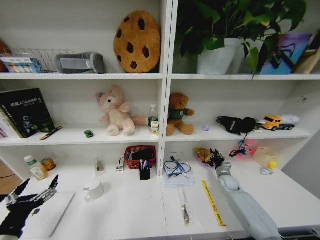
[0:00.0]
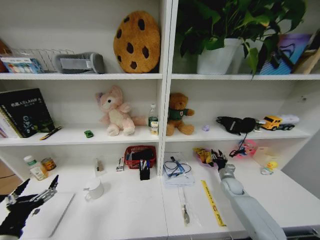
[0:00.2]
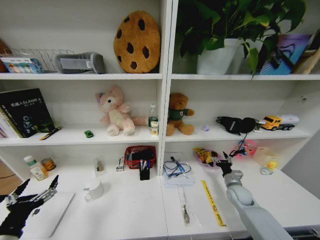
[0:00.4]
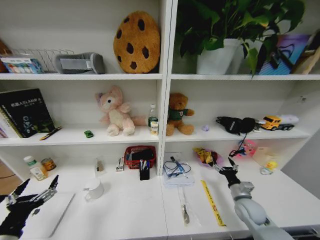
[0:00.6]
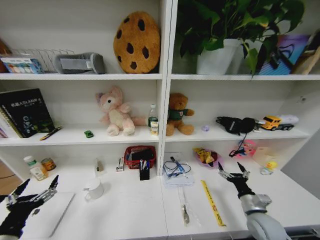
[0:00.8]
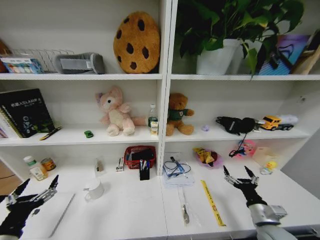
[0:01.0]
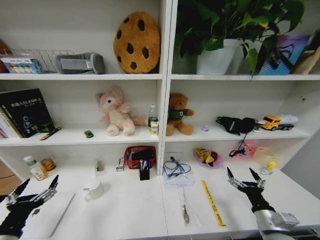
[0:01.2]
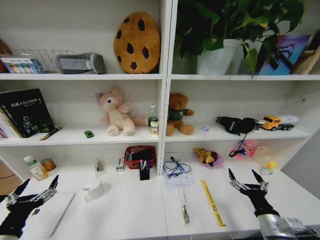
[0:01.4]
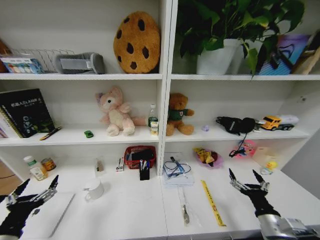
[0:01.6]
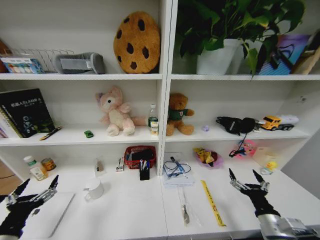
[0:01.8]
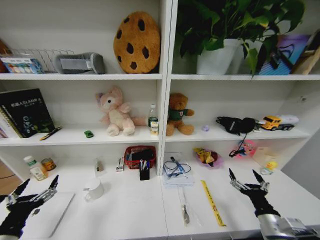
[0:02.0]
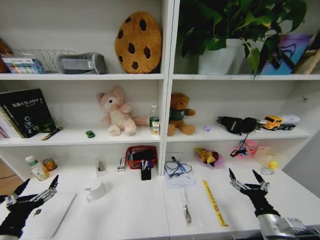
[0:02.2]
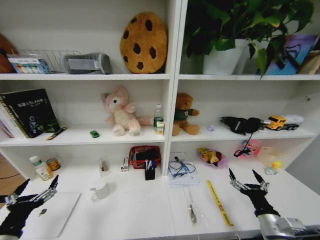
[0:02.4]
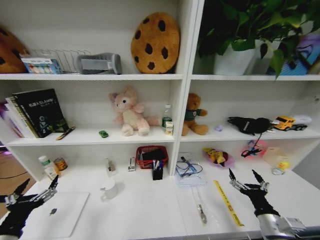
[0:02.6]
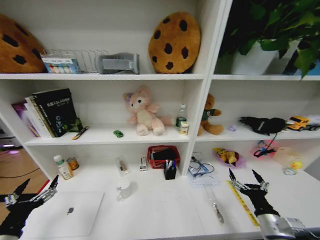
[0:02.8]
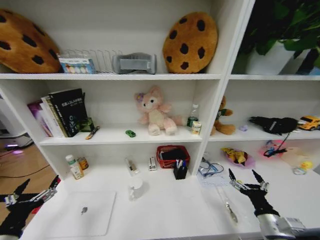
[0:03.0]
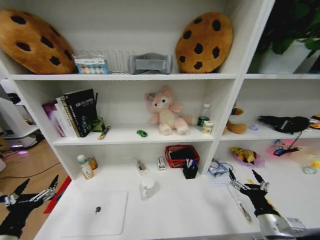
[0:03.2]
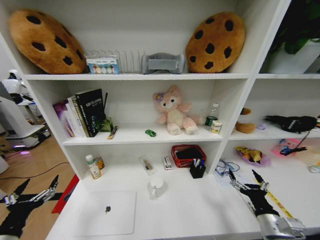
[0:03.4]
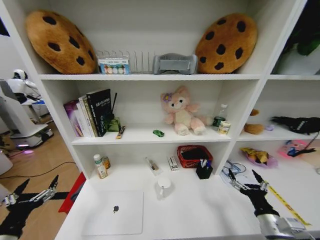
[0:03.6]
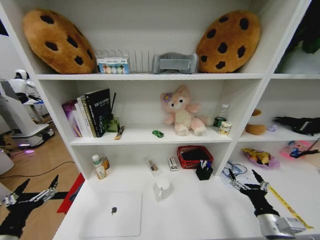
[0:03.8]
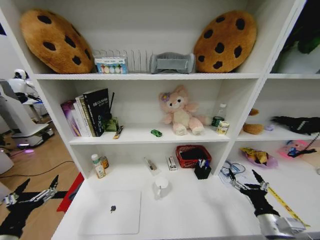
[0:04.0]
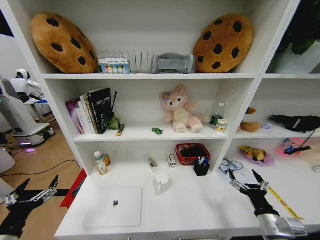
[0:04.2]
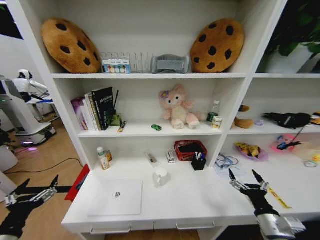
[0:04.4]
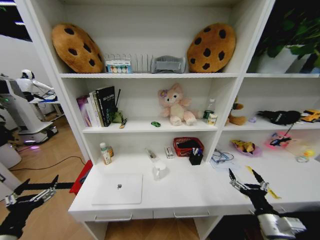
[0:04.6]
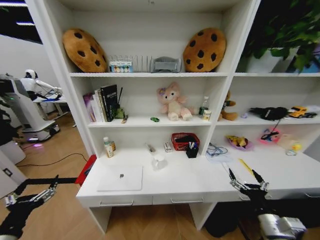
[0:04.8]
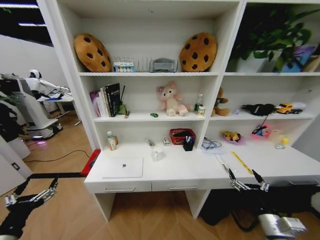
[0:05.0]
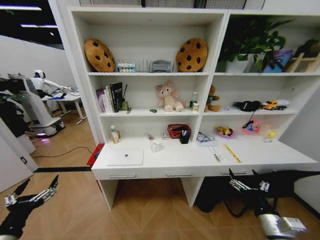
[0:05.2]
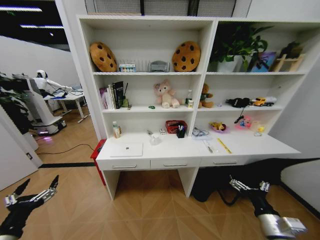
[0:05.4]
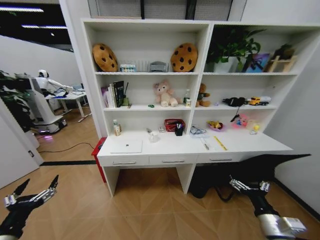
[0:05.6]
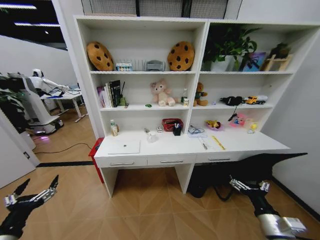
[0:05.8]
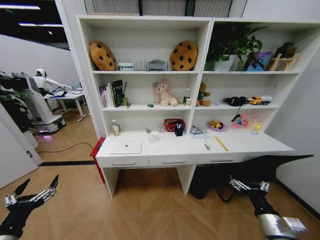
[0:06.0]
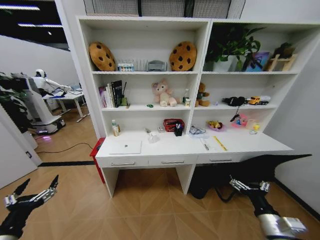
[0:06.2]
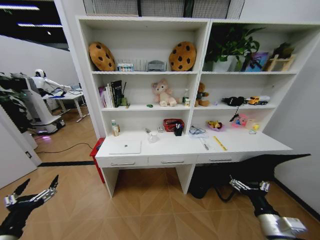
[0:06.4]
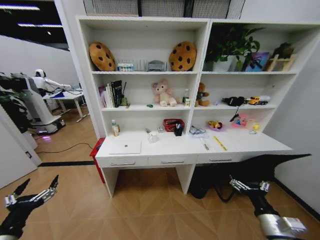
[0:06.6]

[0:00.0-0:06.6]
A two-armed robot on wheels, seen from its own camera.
Task of the whole recording: Organize the objects on the table.
0:00.0 to 0:01.6: The right gripper moves backward, roughly 30 cm, and opens.

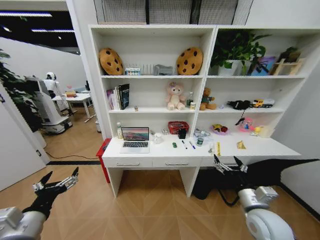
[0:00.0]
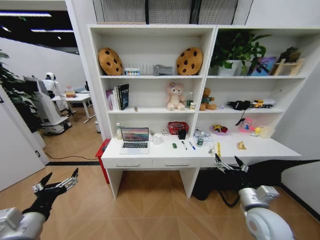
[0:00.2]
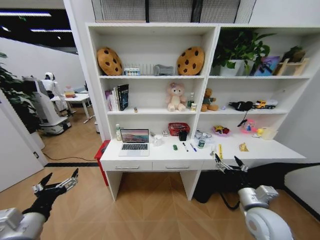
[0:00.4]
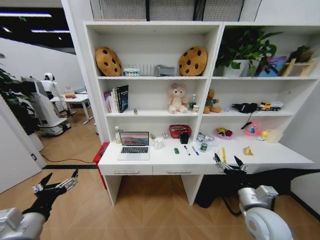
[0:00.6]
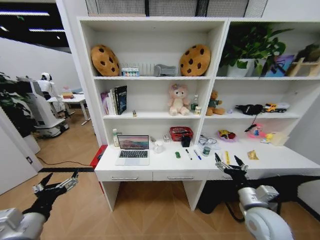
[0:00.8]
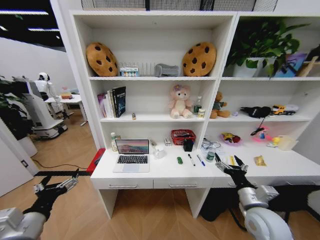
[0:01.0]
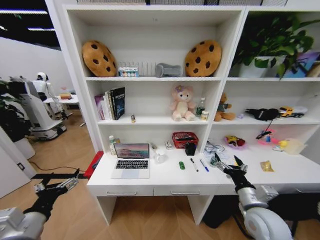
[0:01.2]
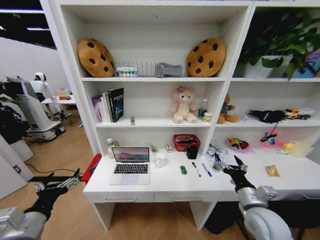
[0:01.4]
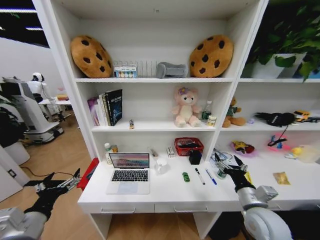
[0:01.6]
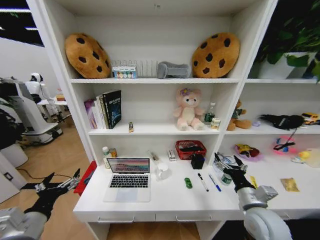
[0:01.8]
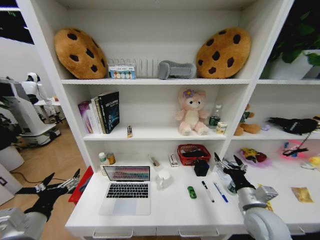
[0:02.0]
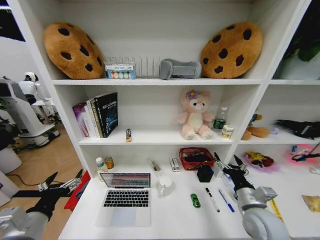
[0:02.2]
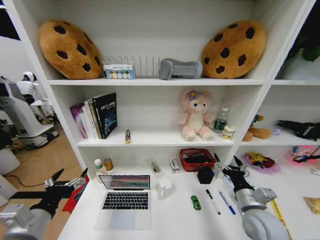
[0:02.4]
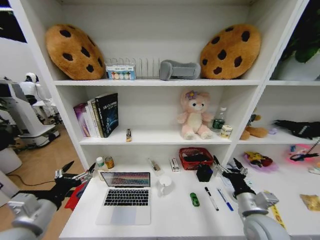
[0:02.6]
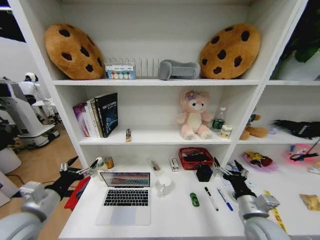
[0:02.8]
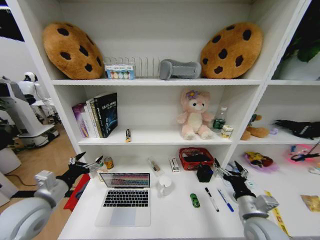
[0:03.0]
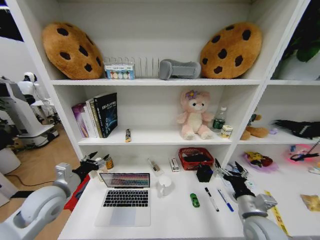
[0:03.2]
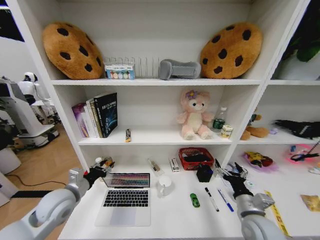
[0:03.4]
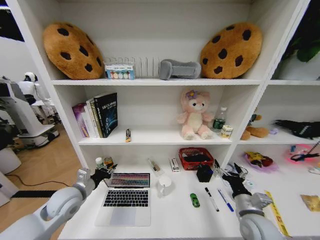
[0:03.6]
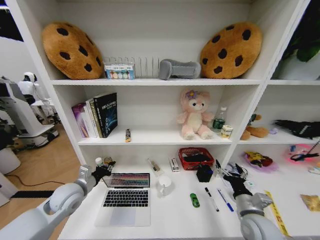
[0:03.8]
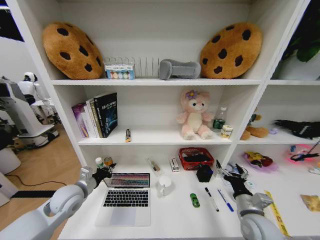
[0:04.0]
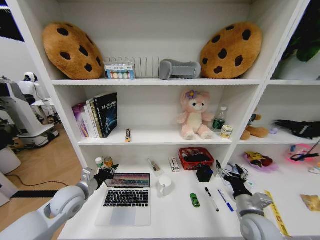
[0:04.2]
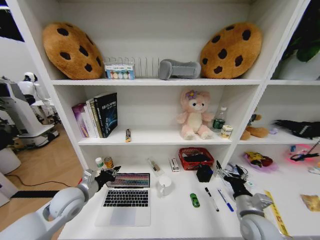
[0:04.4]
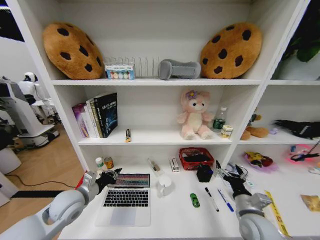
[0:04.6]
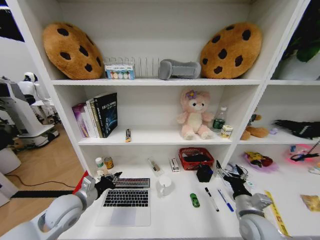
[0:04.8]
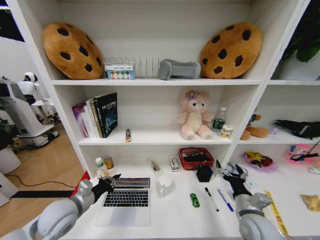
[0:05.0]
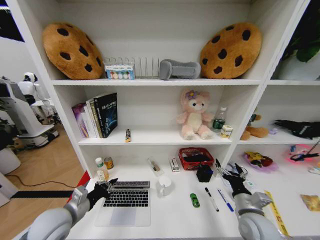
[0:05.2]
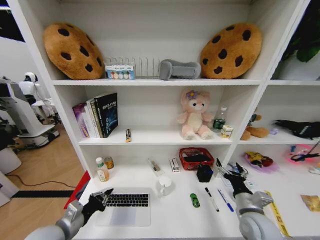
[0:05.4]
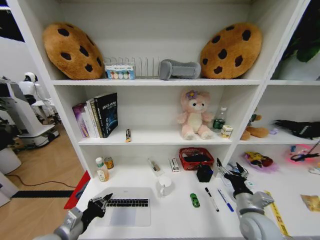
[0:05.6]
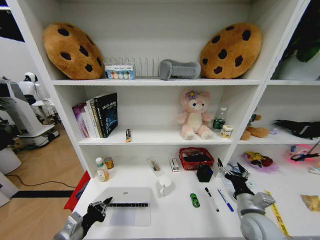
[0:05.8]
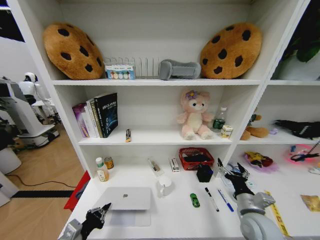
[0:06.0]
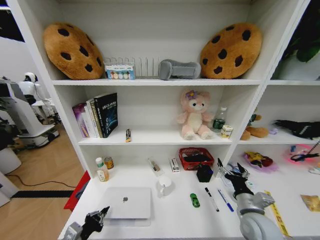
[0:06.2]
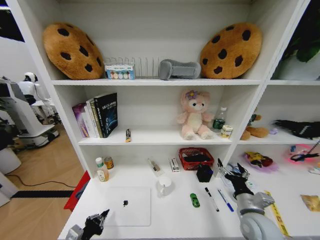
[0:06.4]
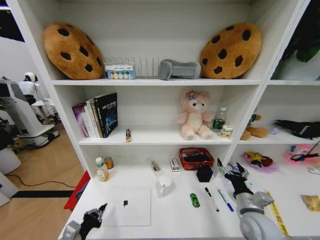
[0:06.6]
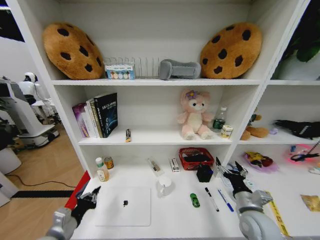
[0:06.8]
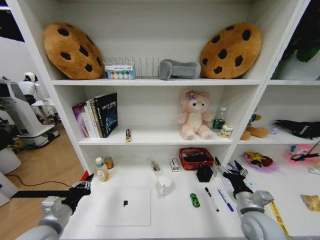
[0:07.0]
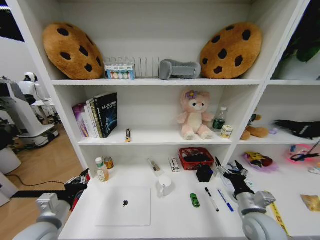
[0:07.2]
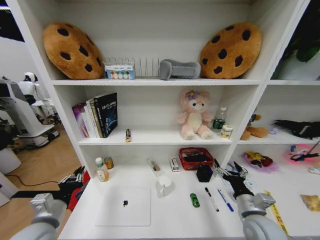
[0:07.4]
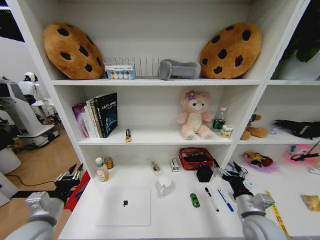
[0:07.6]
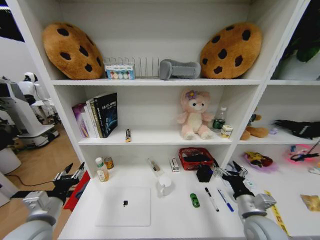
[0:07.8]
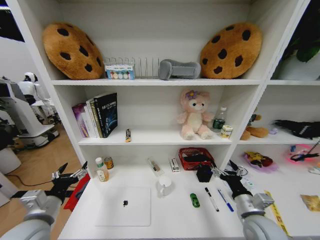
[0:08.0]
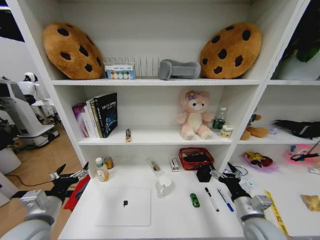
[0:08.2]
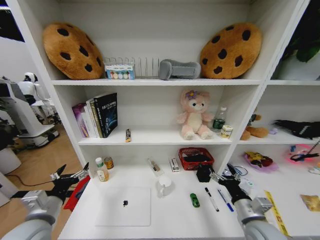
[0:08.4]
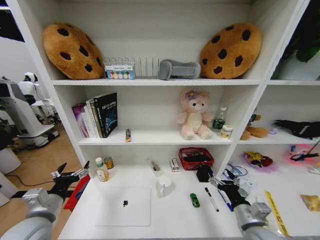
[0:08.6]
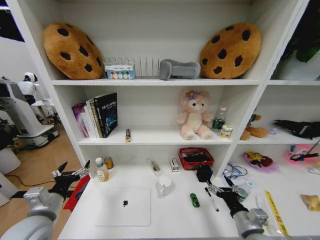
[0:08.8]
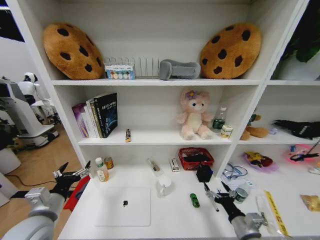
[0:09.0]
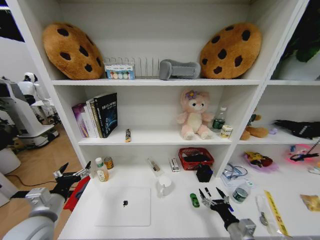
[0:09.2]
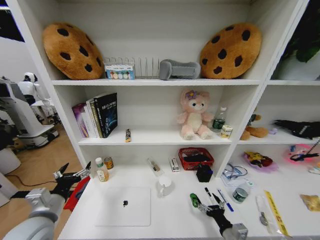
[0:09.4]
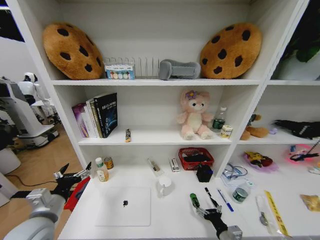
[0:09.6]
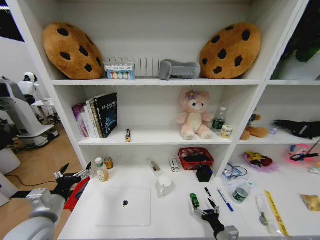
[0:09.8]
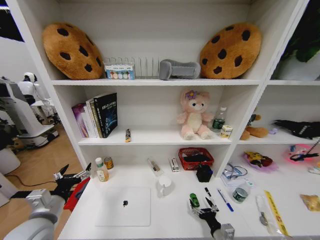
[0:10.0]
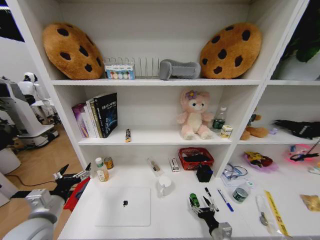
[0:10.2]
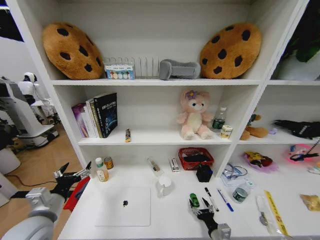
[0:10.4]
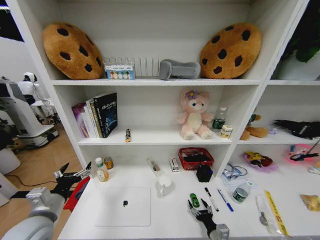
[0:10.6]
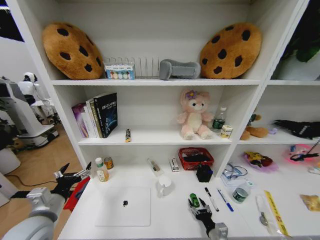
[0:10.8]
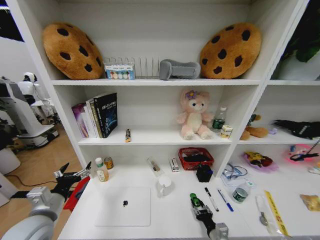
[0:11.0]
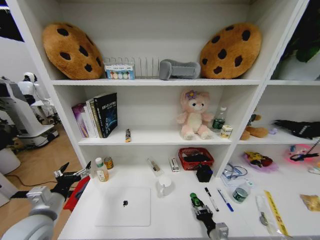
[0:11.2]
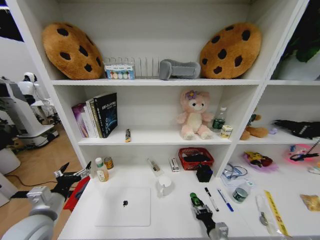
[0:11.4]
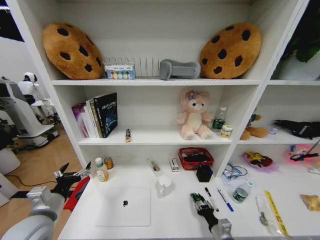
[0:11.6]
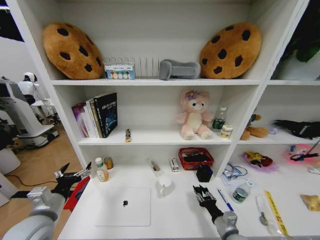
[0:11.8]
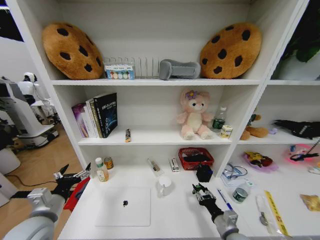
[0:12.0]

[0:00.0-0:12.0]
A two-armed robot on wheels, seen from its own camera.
Task of the whole recording: Organize the objects on the table.
0:01.6 to 0:03.0: The left gripper shifts approximately 10 cm forward.
0:03.0 to 0:04.4: The left gripper heads downward, covering roughly 5 cm, and closes up.
0:04.4 to 0:06.0: The left gripper travels backward by approximately 15 cm.
0:06.0 to 0:07.6: The left gripper shifts some 5 cm upward.
0:07.6 to 0:09.0: The left gripper opens; the right gripper travels downward and backward by approximately 10 cm.
0:09.0 to 0:10.4: The right gripper goes some 10 cm downward.
0:10.4 to 0:12.0: The right gripper heads upward, covering some 5 cm, and closes up.

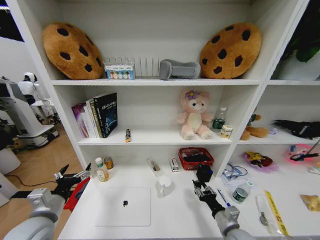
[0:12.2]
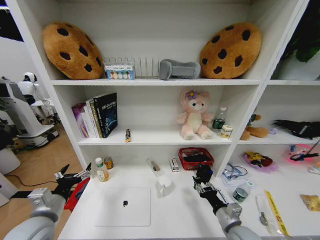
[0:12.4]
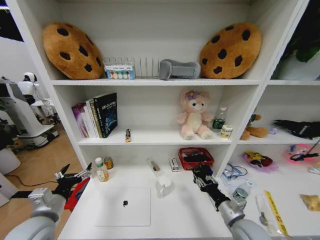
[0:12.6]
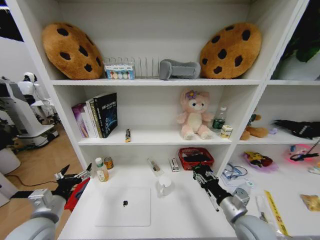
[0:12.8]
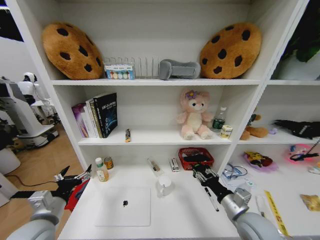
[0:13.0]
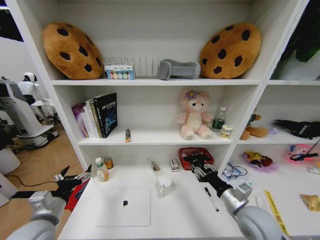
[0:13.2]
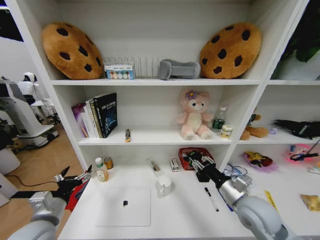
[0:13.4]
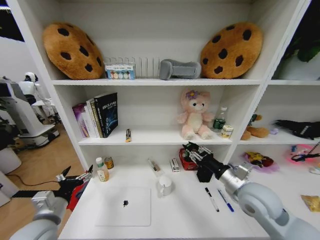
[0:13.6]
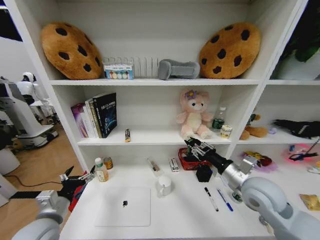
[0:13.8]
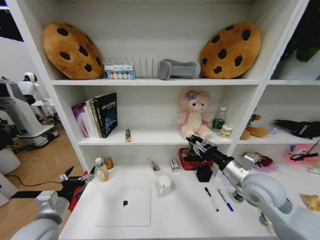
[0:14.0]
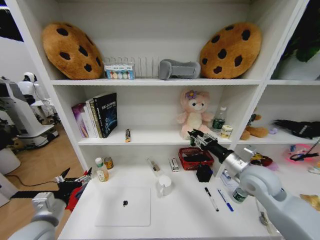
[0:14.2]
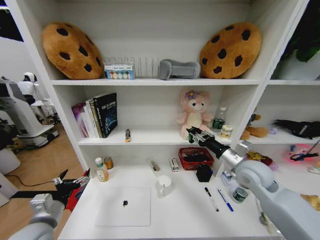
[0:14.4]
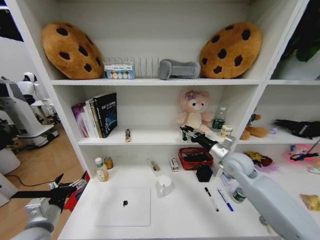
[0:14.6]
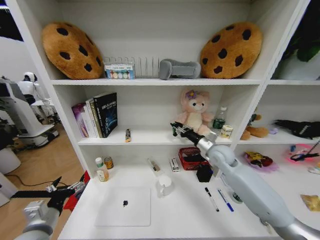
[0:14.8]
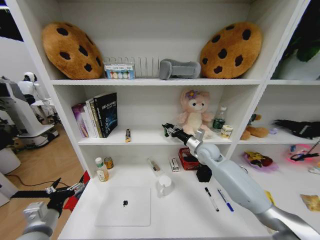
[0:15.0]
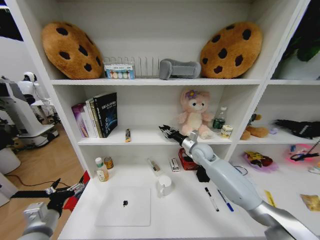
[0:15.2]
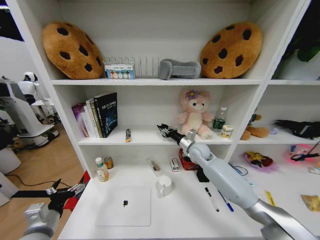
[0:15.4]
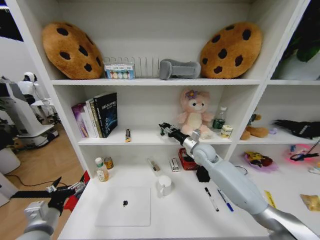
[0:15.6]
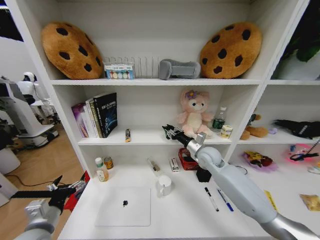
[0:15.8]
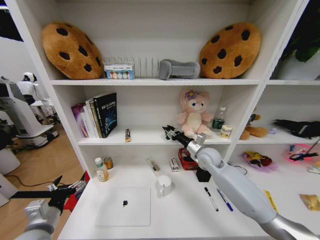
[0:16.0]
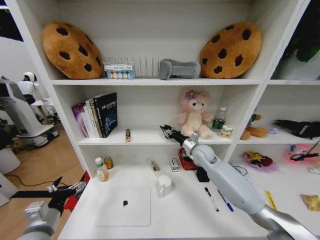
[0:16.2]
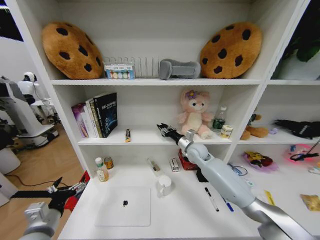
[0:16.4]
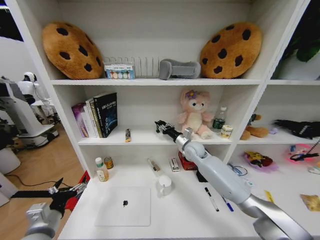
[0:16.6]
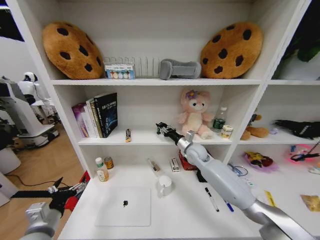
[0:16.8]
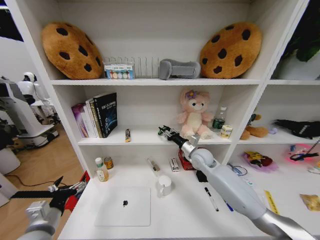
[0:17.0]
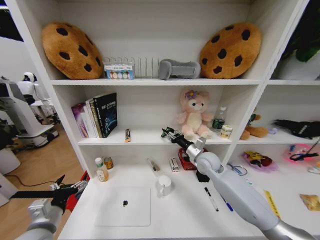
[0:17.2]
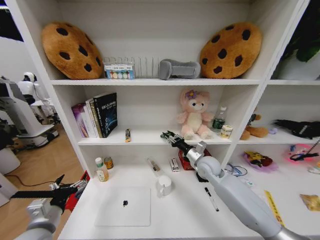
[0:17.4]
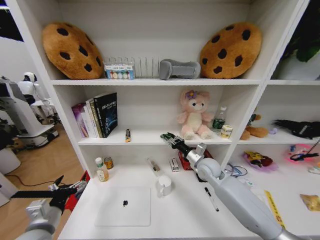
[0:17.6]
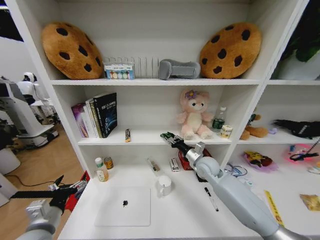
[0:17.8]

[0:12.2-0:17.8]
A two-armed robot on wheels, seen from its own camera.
Task of the whole recording: Organize the objects on the table.
0:12.2 to 0:13.6: The right gripper travels upward and forward by approximately 20 cm.
0:13.6 to 0:15.0: The right gripper heads forward, covering approximately 20 cm.
0:15.0 to 0:16.4: The right gripper shifts by some 5 cm.
0:16.4 to 0:17.8: The right gripper goes some 5 cm backward.
